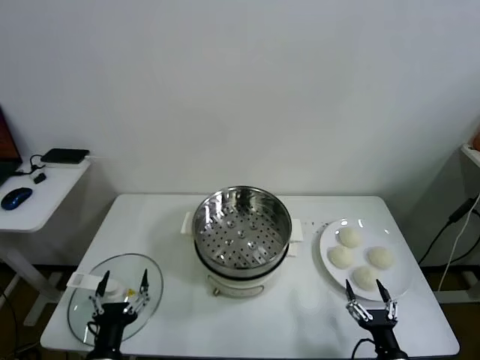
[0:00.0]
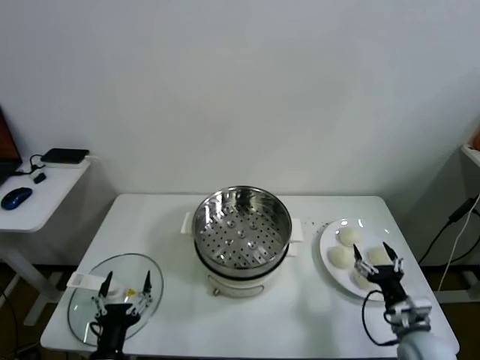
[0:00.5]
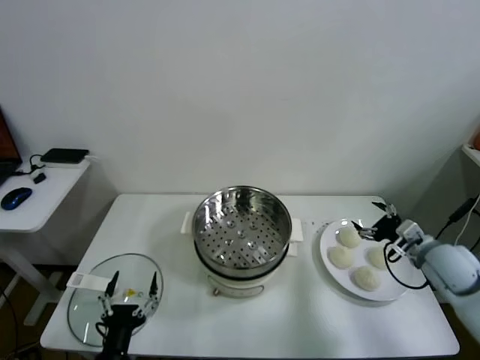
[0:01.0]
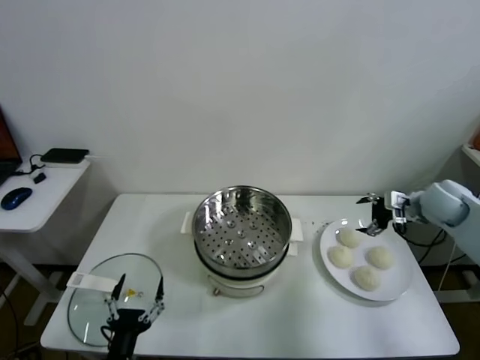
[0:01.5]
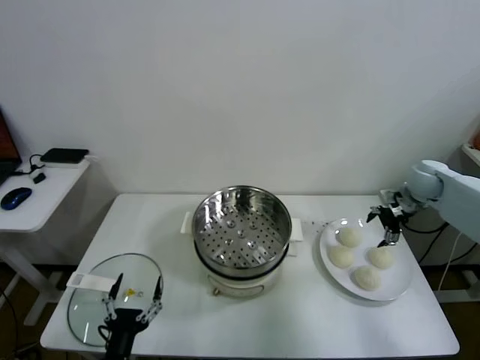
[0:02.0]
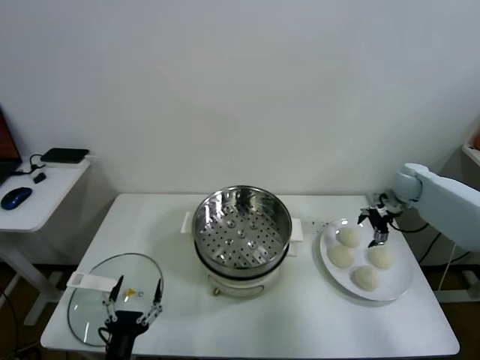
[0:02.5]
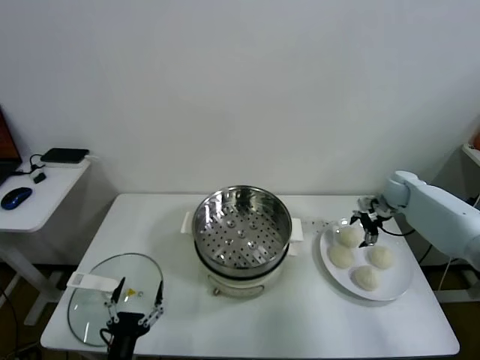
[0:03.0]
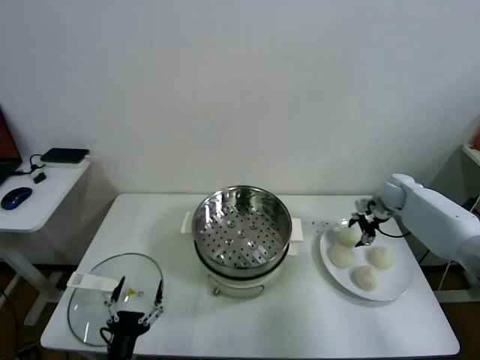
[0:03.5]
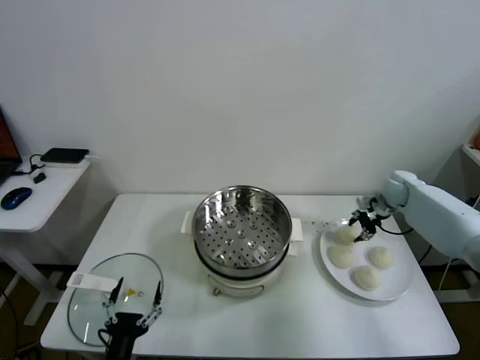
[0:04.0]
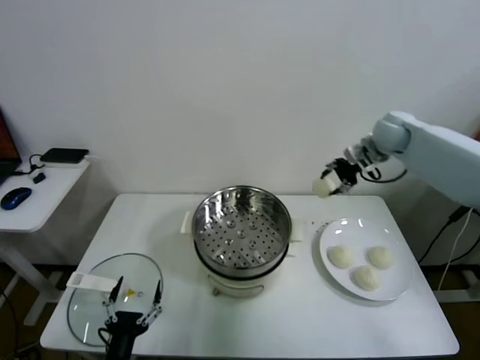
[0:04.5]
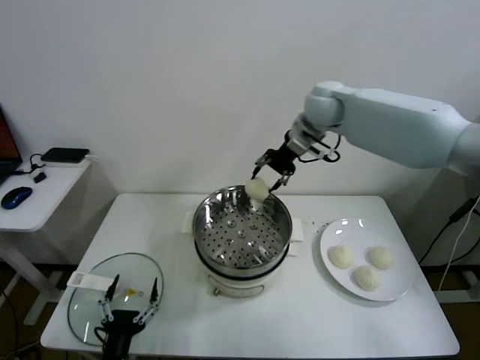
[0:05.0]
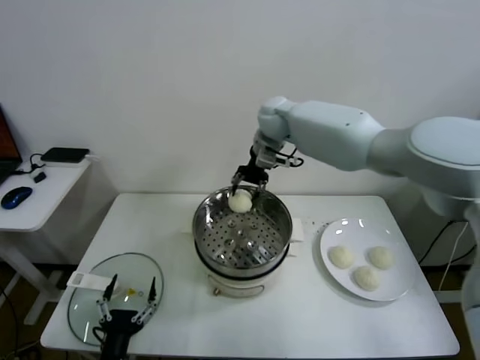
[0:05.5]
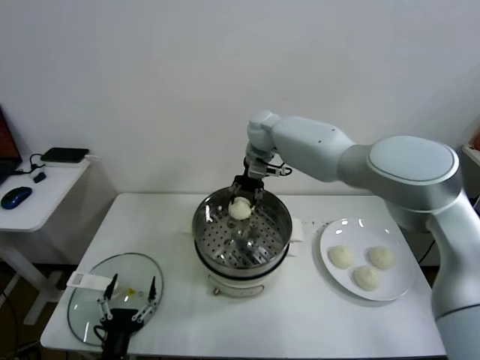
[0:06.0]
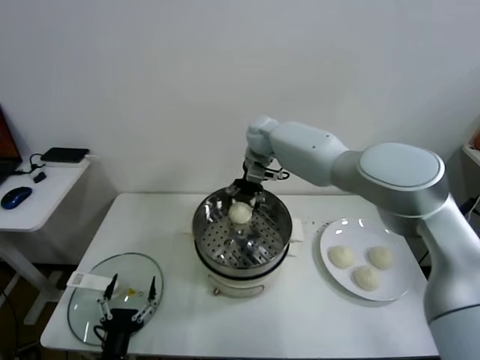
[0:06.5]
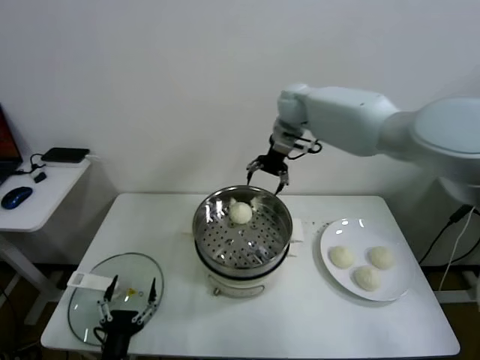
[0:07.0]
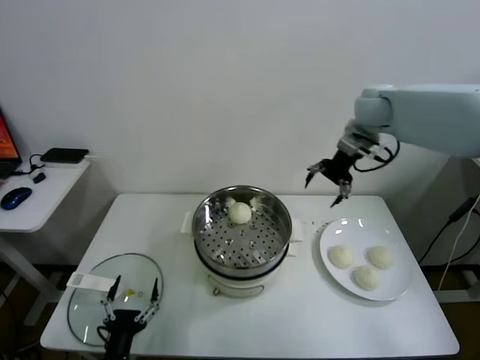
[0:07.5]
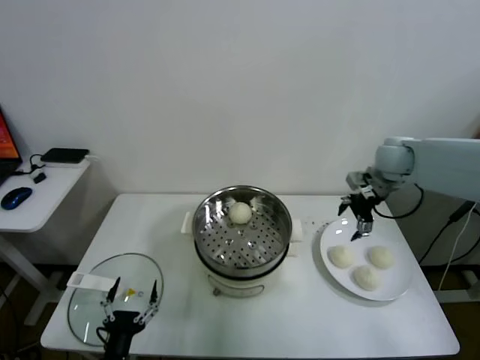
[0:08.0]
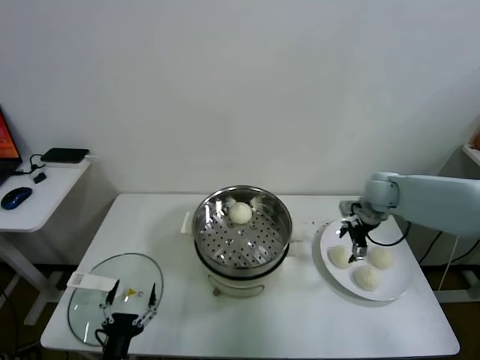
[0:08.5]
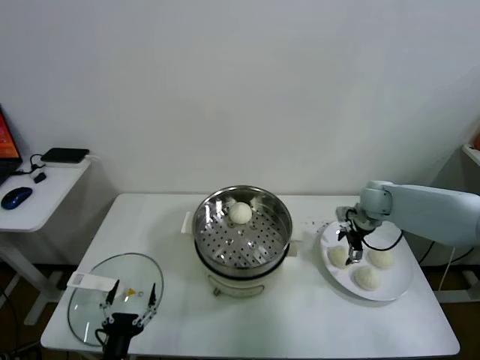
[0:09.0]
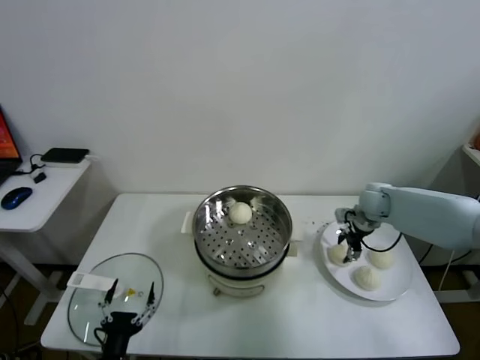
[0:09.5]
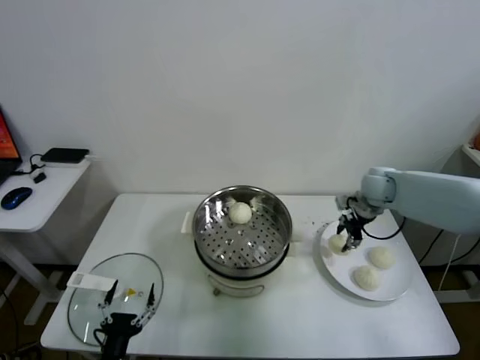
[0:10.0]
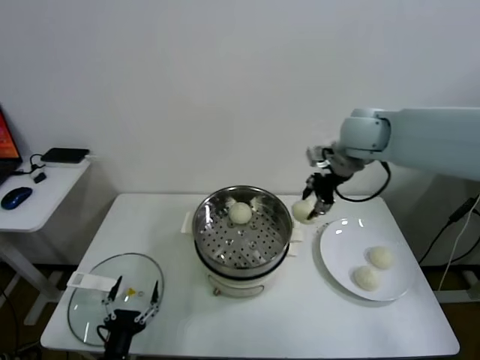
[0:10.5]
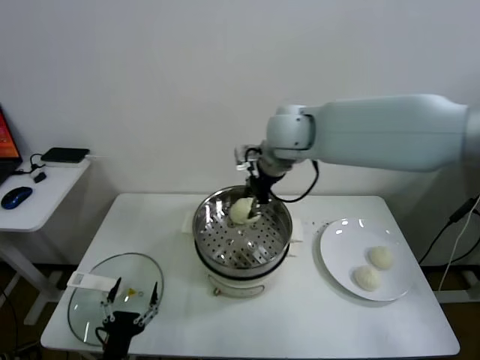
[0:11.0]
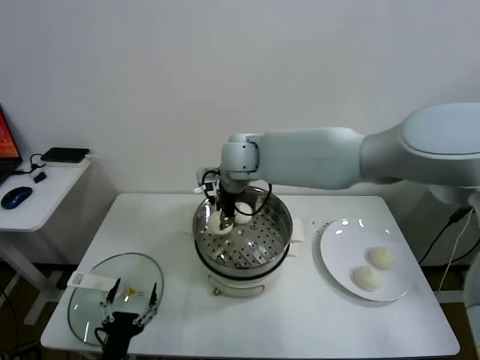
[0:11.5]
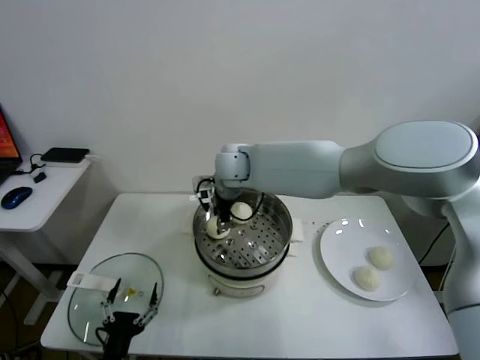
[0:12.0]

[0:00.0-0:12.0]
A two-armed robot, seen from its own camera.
Task of the whole recording: take steamed baozi put them in steamer.
Step, 0:00.0 to 0:03.5: Grasp the baozi in the plate with right gripper.
Step, 0:04.0 to 0:06.5: Place the baozi on the steamer with right gripper.
Step, 0:07.0 to 0:09.5: Grasp the baozi in the plate with right gripper.
0:02.0 to 0:04.0: The right gripper closes its fingers.
0:04.0 to 0:06.0: The right gripper goes approximately 35 cm to the left.
0:06.0 to 0:08.0: The right gripper moves to the right, about 30 cm, and opens up.
0:08.0 to 0:10.0: The right gripper shifts some 5 cm downward, and closes.
0:10.0 to 0:12.0: The right gripper goes roughly 35 cm to the left.

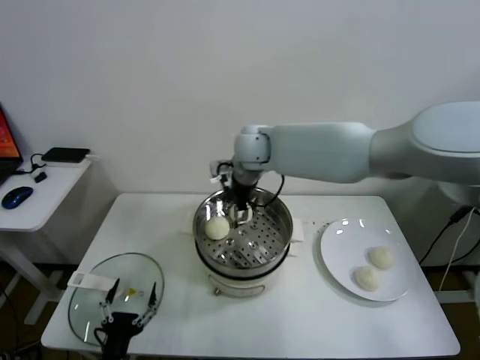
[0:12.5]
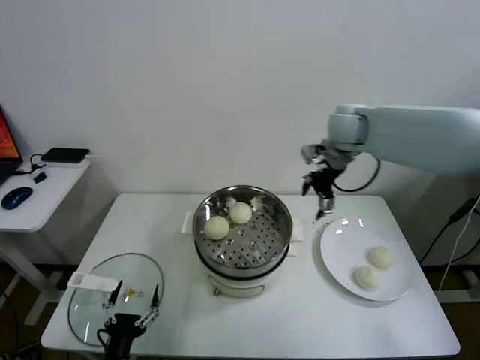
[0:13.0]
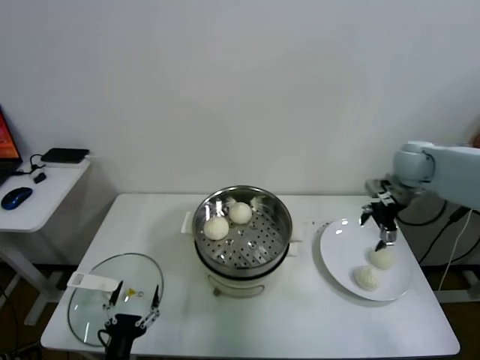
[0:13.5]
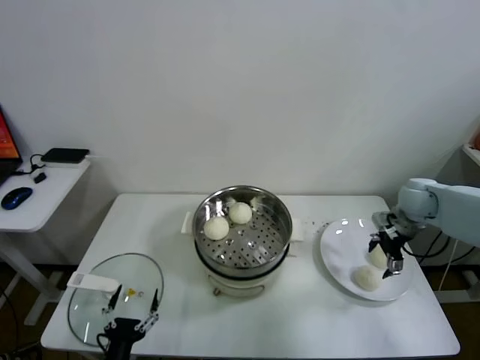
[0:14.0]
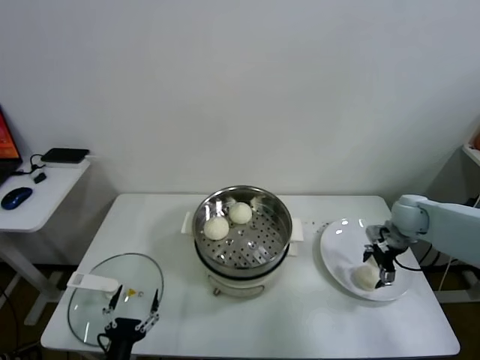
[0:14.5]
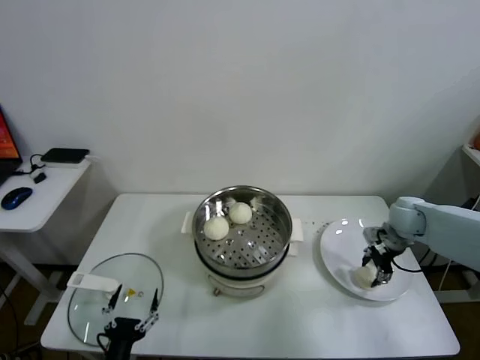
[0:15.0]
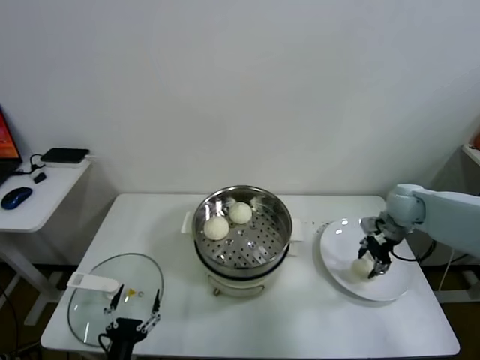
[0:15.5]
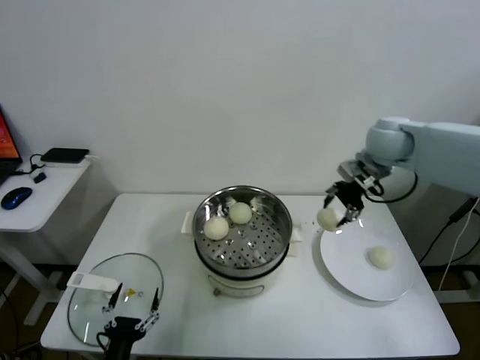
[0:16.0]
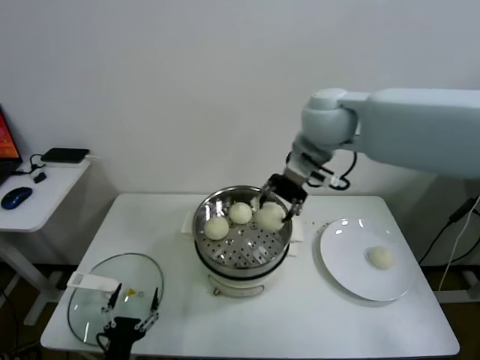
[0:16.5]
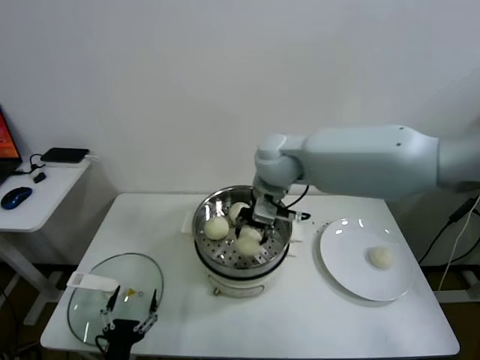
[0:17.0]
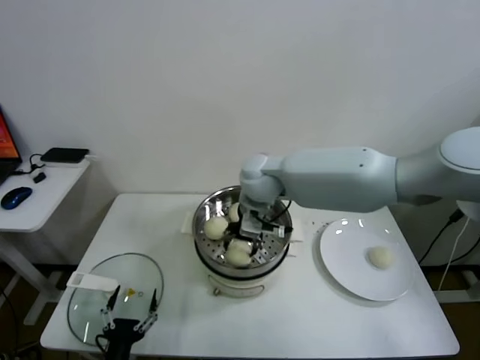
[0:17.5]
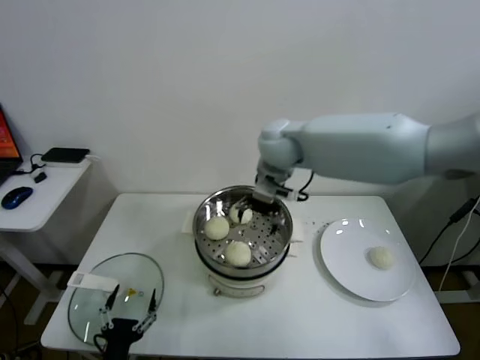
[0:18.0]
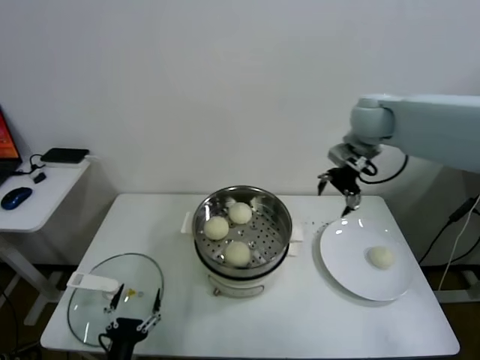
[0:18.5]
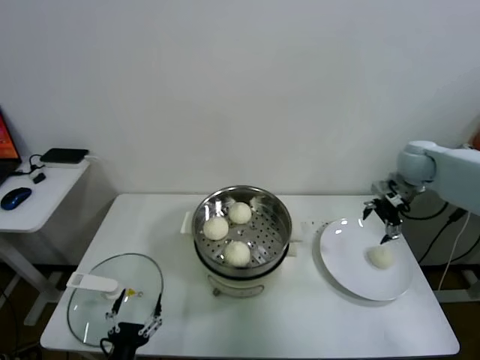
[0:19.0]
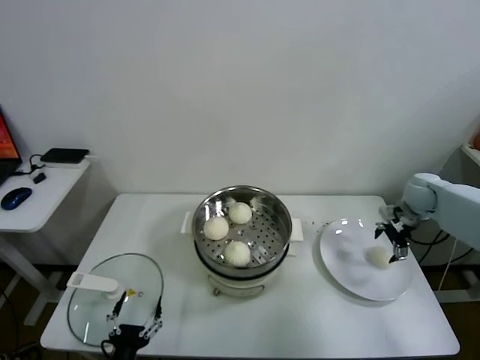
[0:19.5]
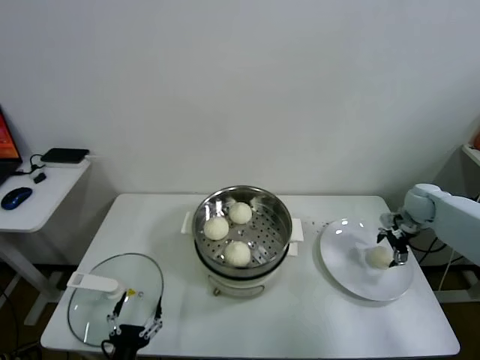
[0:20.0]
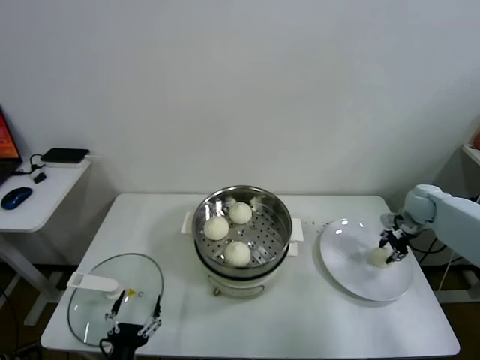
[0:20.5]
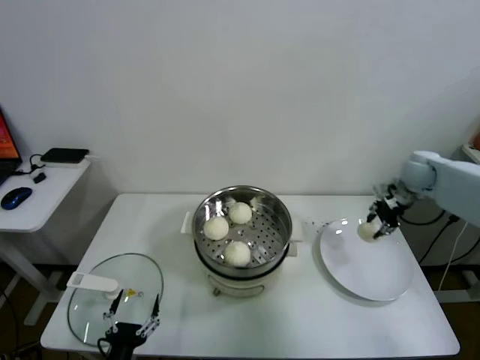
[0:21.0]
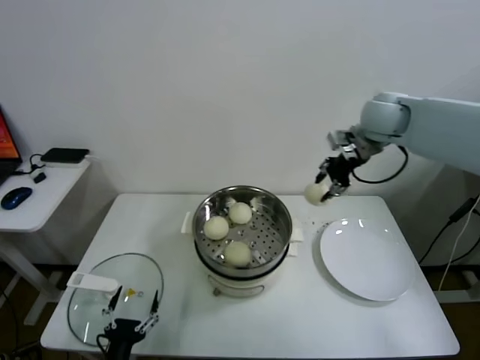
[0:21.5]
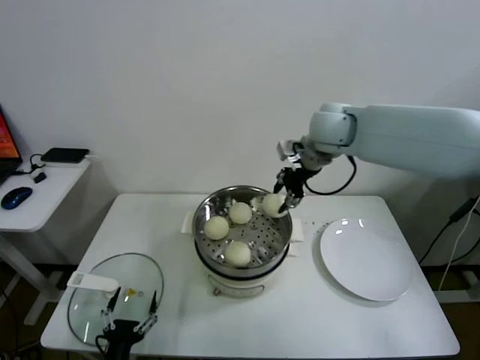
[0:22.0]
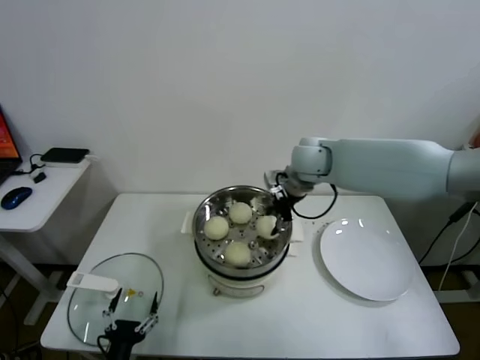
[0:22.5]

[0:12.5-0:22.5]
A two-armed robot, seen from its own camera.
Task of the whole recording: take steamed baozi put them in steamer.
Step, 0:12.5 to 0:15.0: Grasp the baozi in the plate with right gripper.
Step, 0:15.5 to 0:17.5: Place the baozi on the steamer with right gripper.
Step, 0:18.0 to 0:20.5: Grasp the baozi in the plate with right gripper.
0:12.5 to 0:14.5: The right gripper shifts roughly 40 cm to the right and downward.
0:14.5 to 0:16.5: The right gripper goes approximately 40 cm to the left and upward, and closes up.
0:16.5 to 0:18.5: The right gripper heads to the right and forward, covering about 15 cm, and opens its fingers.
0:18.5 to 0:20.5: The right gripper shifts some 30 cm downward and to the right, and closes.
0:20.5 to 0:22.5: The right gripper is displaced to the left and upward by about 35 cm.

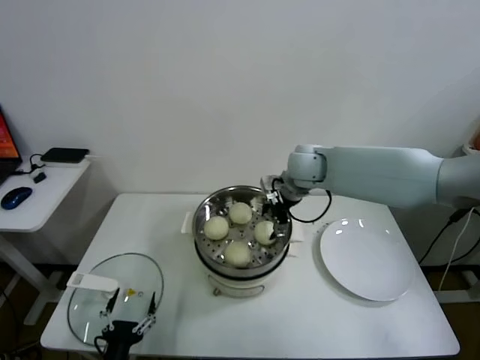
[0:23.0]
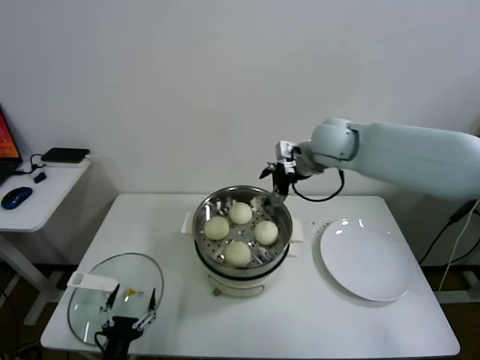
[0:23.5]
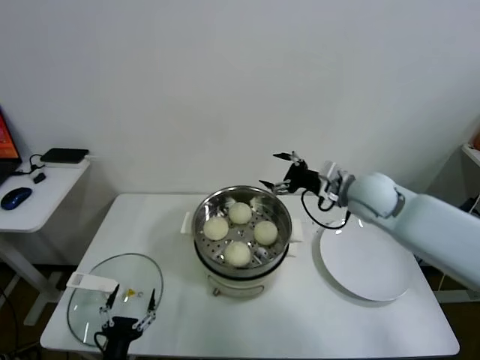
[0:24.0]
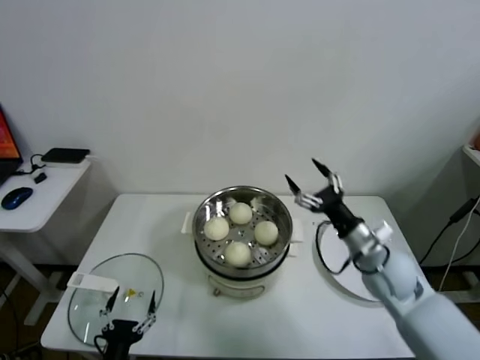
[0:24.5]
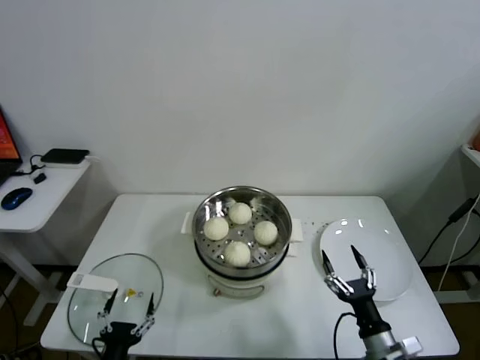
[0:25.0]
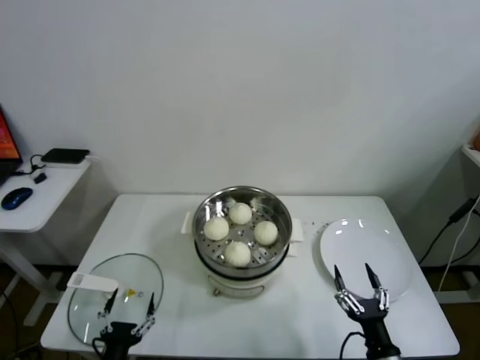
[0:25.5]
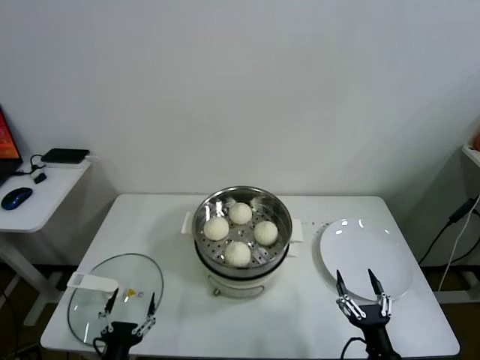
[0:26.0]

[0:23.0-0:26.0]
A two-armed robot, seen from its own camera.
Task of the whole recording: take steamed baozi put them in steamer.
0:23.0 to 0:24.5: The right gripper travels backward, to the right and downward by about 25 cm.
0:24.5 to 0:26.0: The right gripper heads backward and downward, covering about 30 cm.
